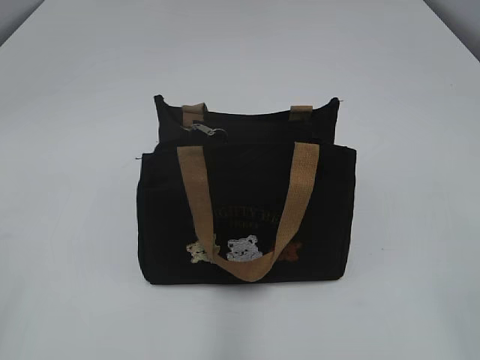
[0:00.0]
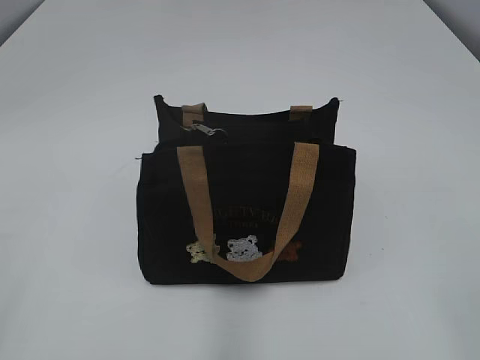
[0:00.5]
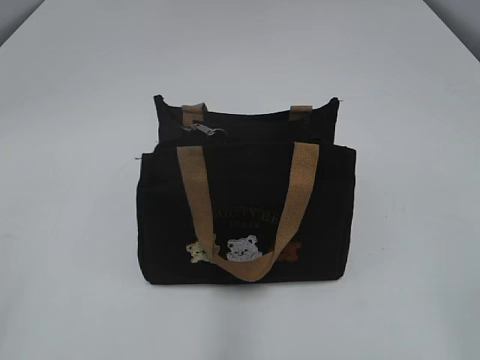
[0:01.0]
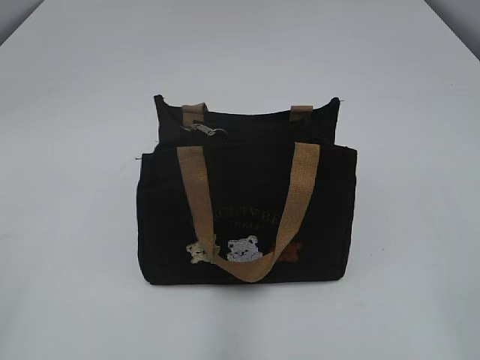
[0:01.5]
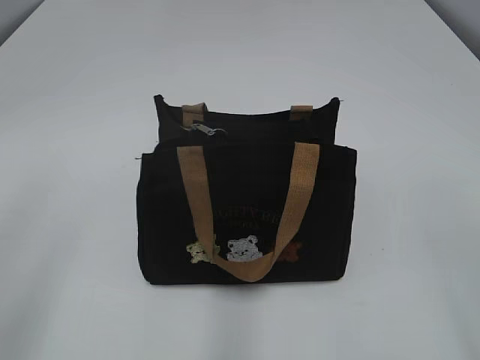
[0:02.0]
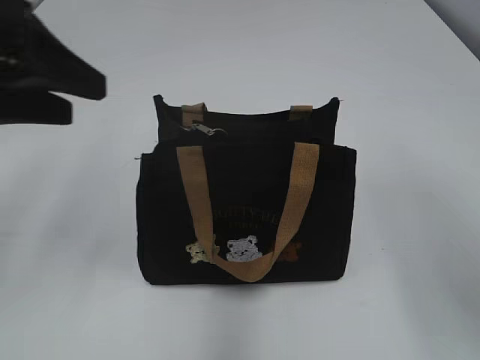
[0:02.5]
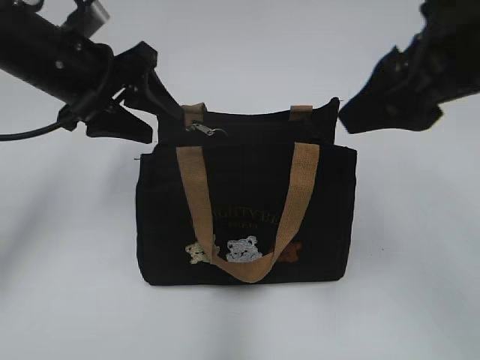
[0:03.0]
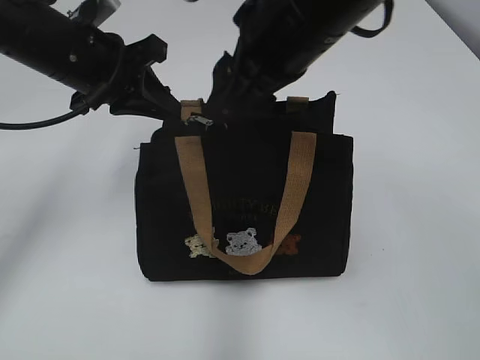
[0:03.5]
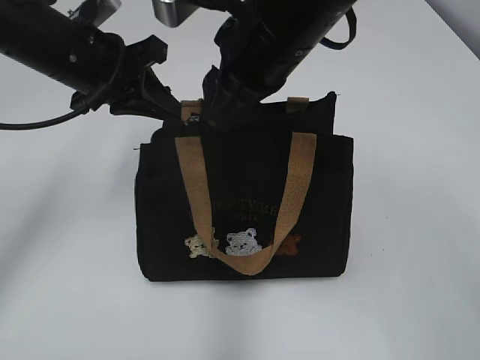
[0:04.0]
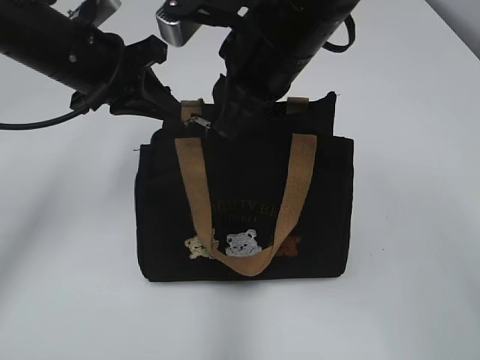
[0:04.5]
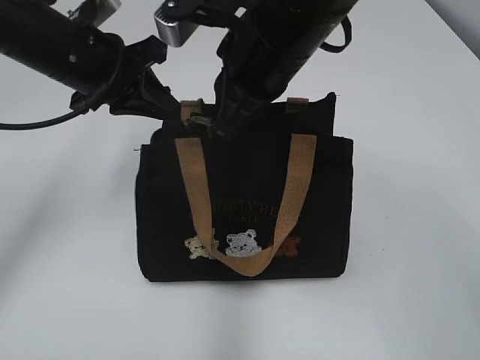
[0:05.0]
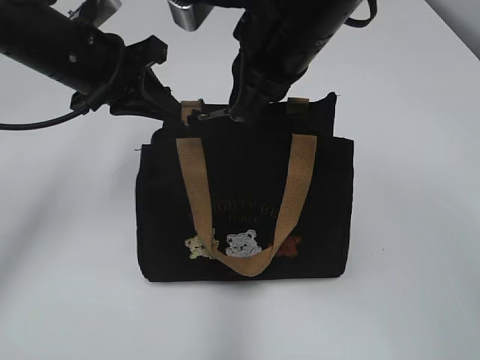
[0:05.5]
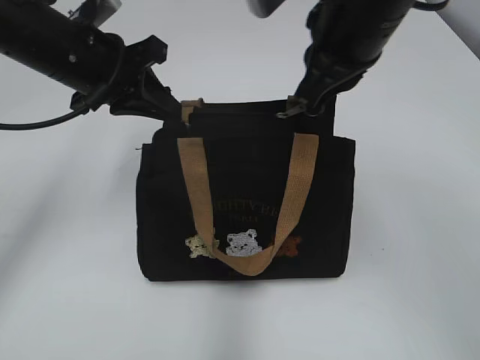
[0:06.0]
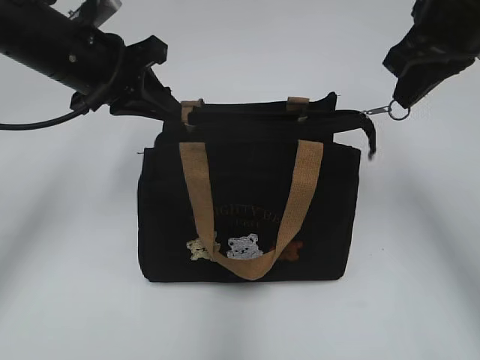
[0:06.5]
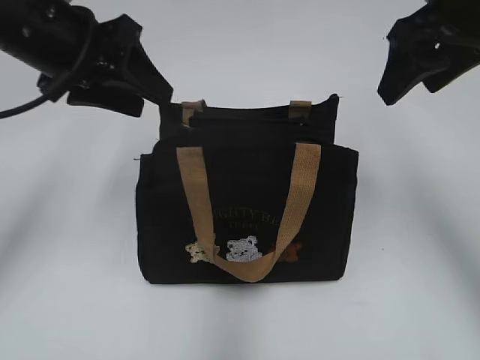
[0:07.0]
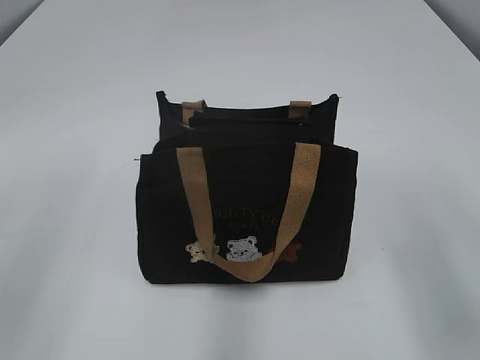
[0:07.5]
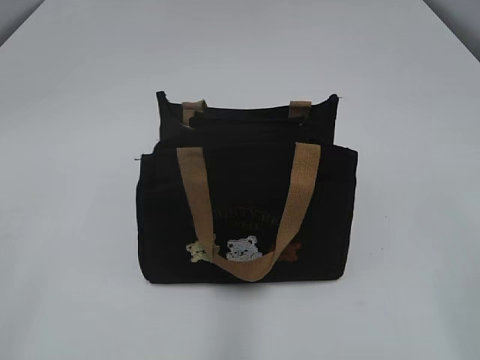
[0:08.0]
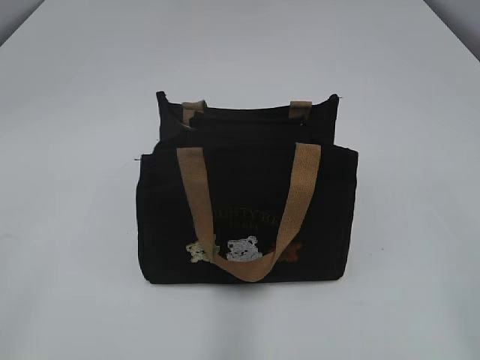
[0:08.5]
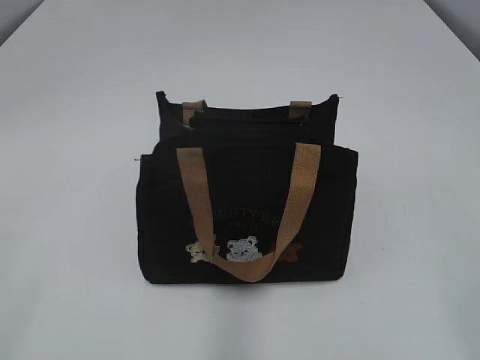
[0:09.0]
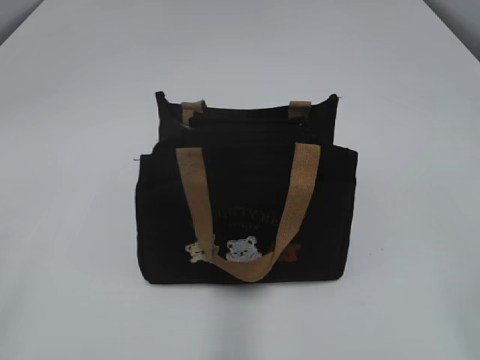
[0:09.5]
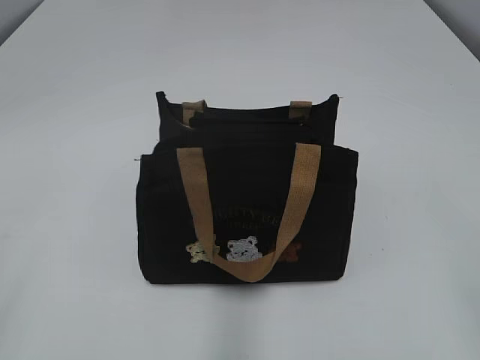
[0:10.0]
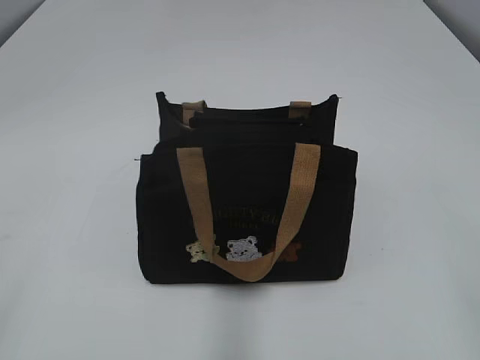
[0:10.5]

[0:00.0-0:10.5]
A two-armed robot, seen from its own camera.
Step, 0:00.0 to 0:06.5: Pull open the zipper with your right hand.
0:02.0 to 0:04.0: The left gripper heads forward and to the right, covering some 30 cm, and closes up. The right gripper is displaced forward and to the left by roughly 35 cm.
0:04.0 to 0:06.5: The right gripper goes approximately 15 cm to the right, and closes its fingers.
0:06.5 to 0:08.5: The left gripper goes about 40 cm backward and to the left, and opens up; the right gripper is displaced backward by approximately 35 cm, and opens its fingers.

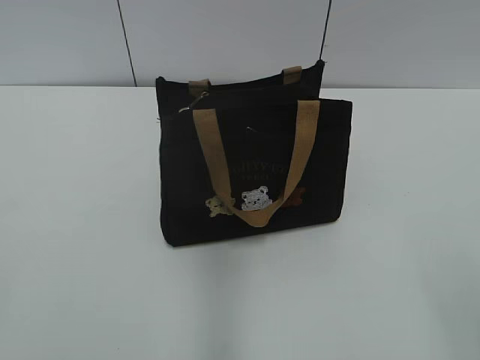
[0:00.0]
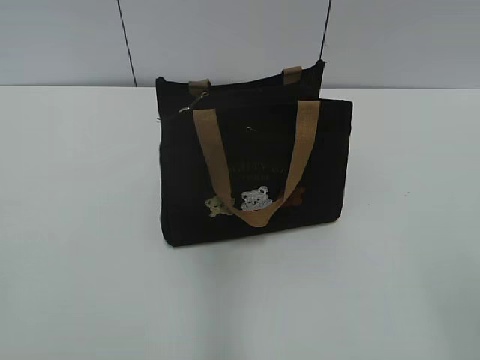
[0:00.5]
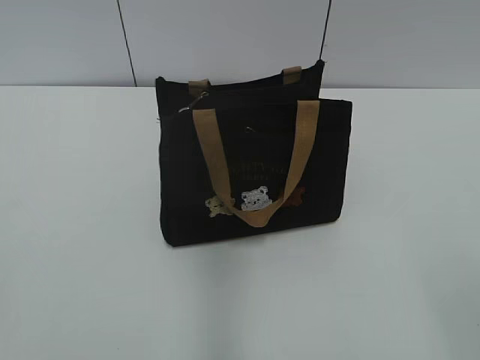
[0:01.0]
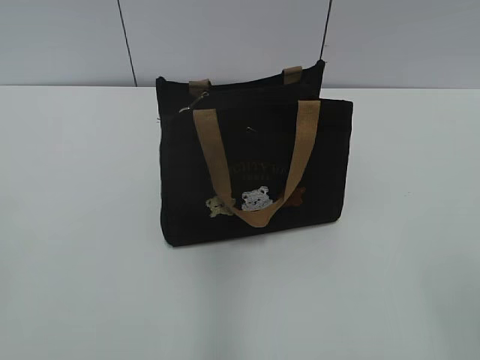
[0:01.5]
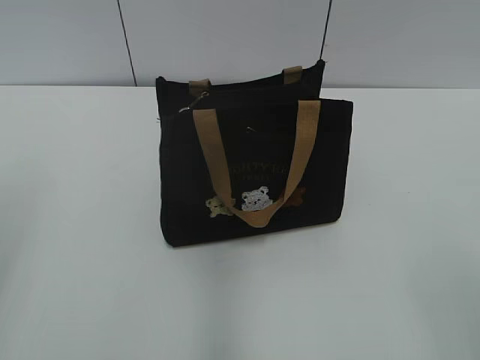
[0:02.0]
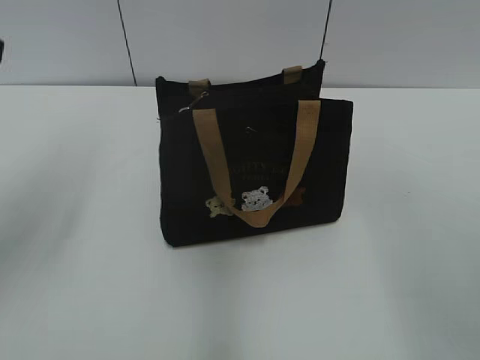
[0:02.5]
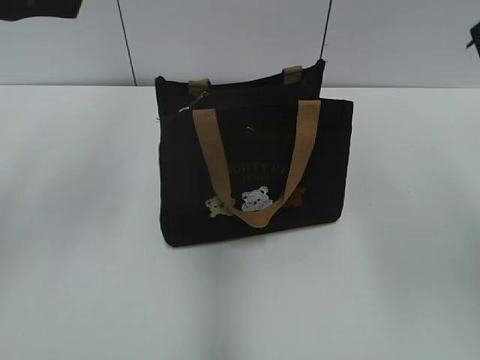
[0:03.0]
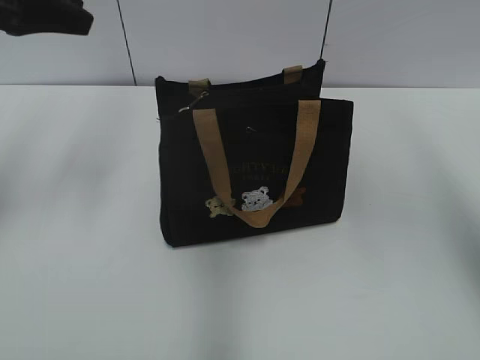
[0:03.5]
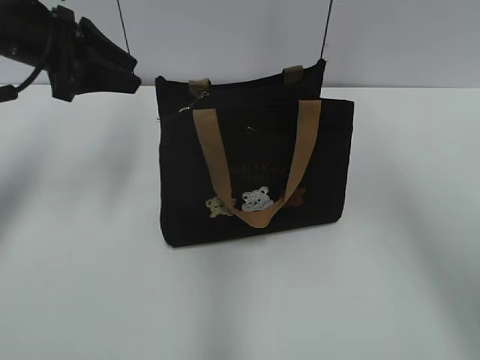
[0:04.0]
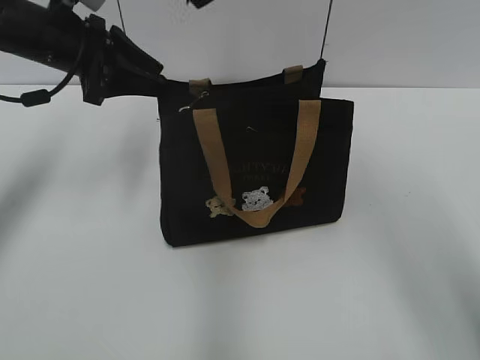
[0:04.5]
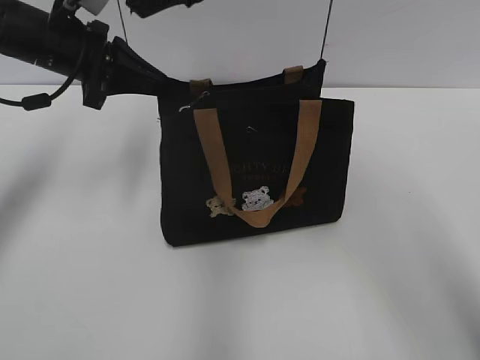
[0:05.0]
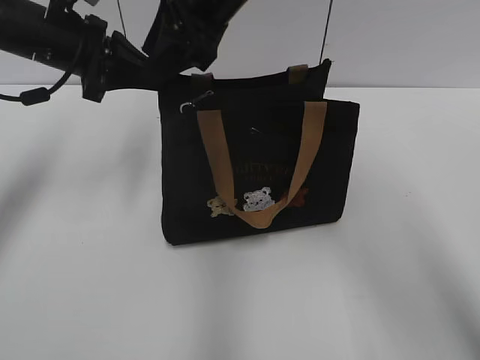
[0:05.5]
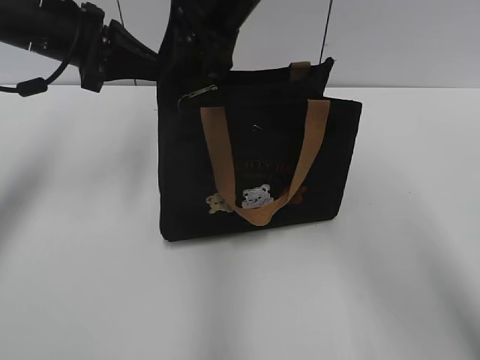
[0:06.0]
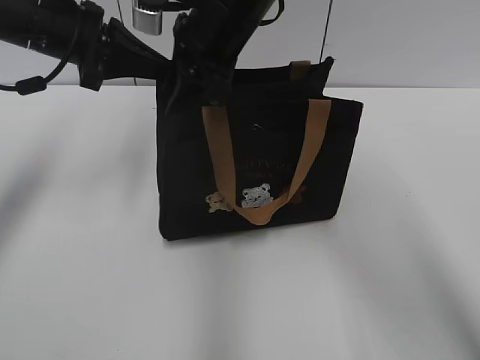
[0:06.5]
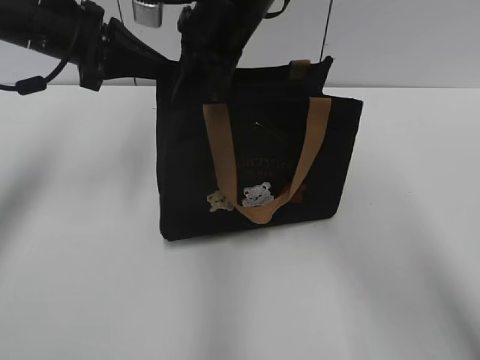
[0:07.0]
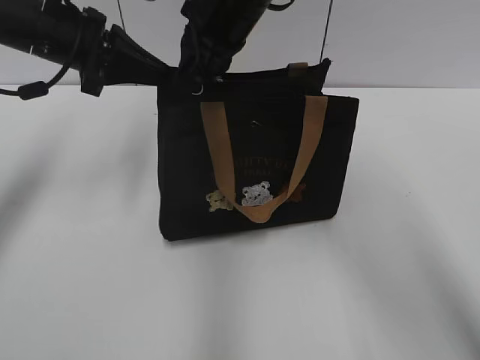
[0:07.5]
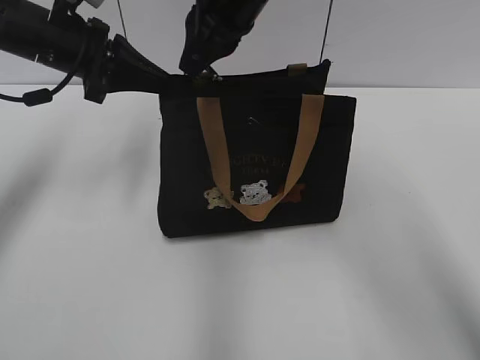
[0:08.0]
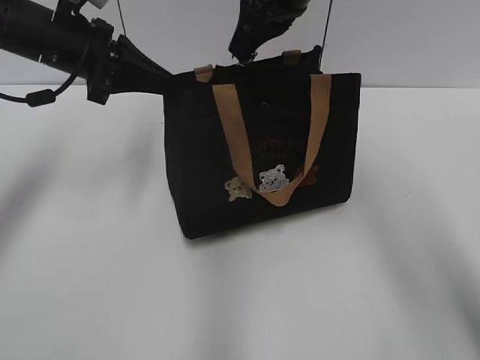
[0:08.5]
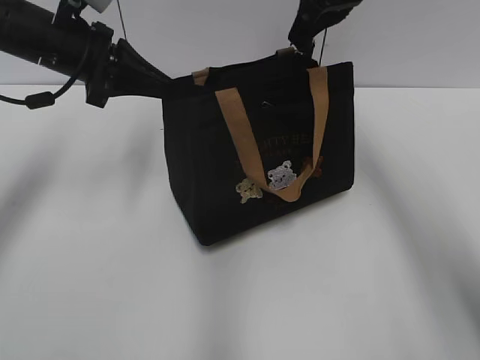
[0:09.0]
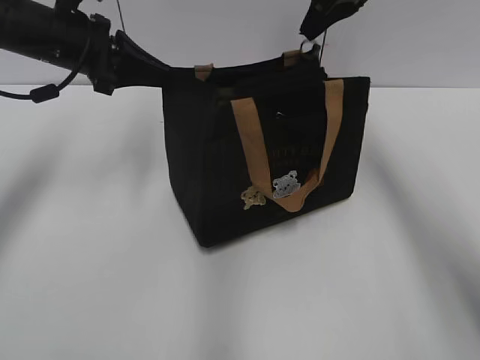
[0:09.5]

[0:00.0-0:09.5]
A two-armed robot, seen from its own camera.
Step, 0:00.0 to 0:09.5: Pull open the zipper with your right hand.
0:02.0 to 0:04.0: The left gripper is displaced forward by some 25 cm; the right gripper heads forward, to the left and upward, covering roughly 40 cm.
0:04.0 to 0:05.5: The right gripper goes approximately 15 cm to the left and downward, while the left gripper closes its fingers.
0:05.5 to 0:07.5: The right gripper closes up.
0:07.5 to 0:09.5: The right gripper goes approximately 15 cm to the right.

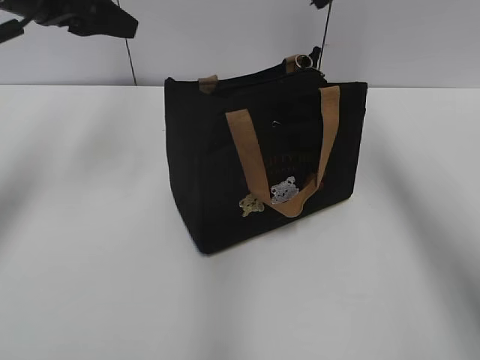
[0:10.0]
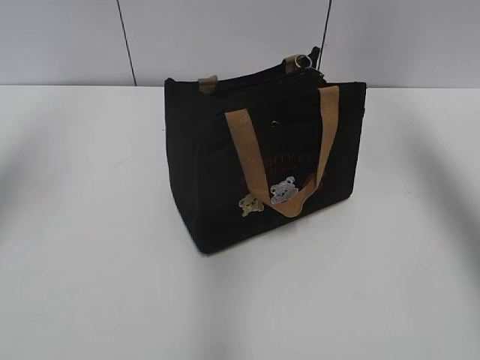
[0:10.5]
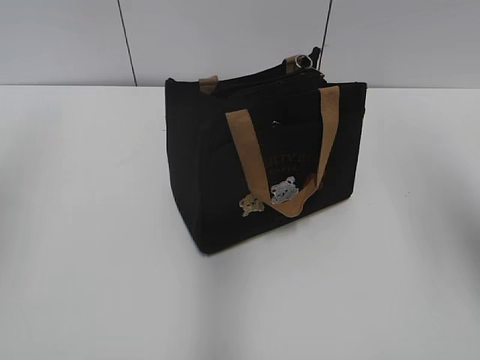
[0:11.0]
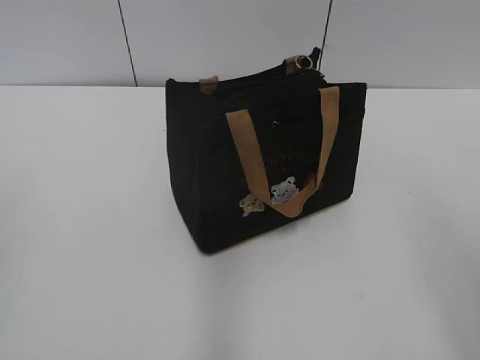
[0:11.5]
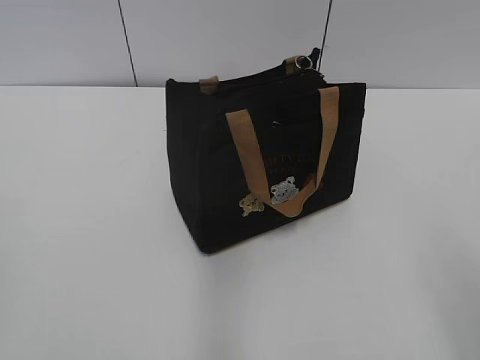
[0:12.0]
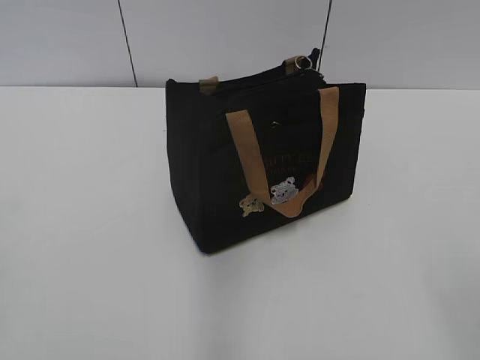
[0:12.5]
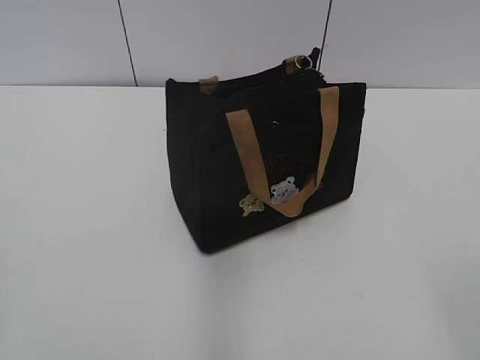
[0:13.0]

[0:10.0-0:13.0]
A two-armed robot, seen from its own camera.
0:10.0 to 0:11.5: Both grippers travel together backward, approximately 30 cm.

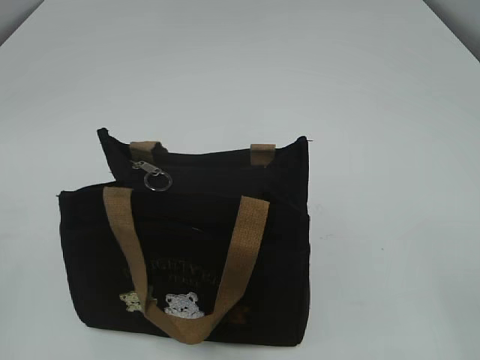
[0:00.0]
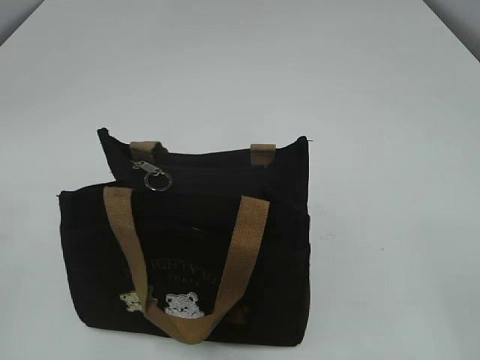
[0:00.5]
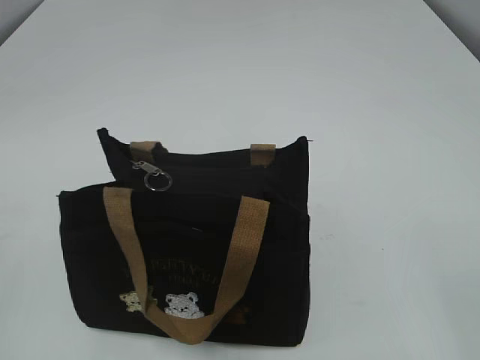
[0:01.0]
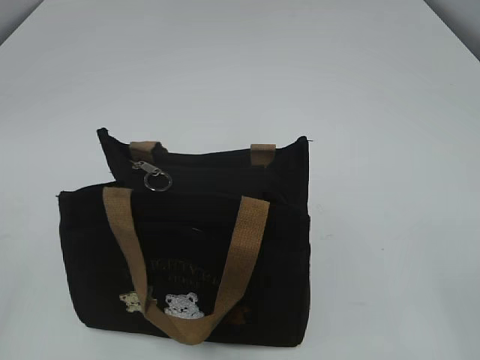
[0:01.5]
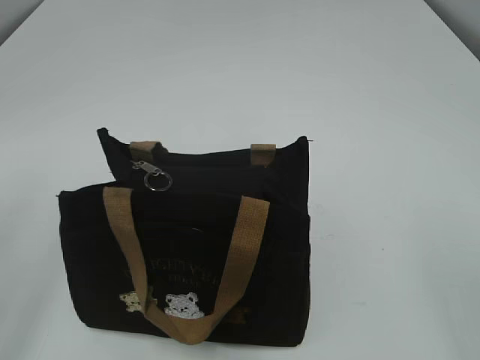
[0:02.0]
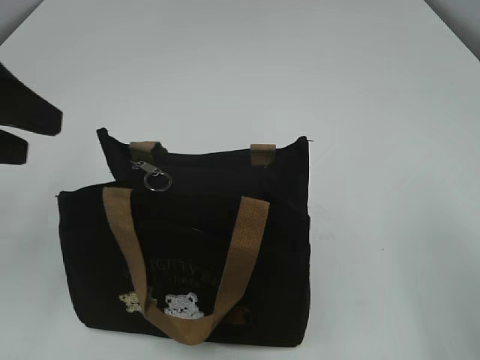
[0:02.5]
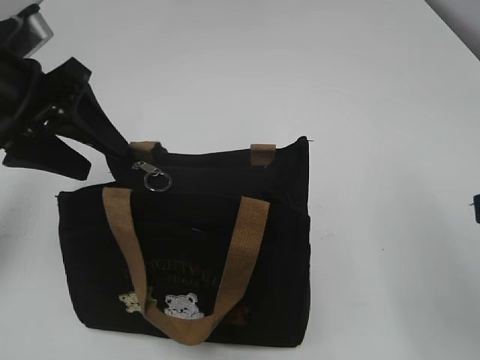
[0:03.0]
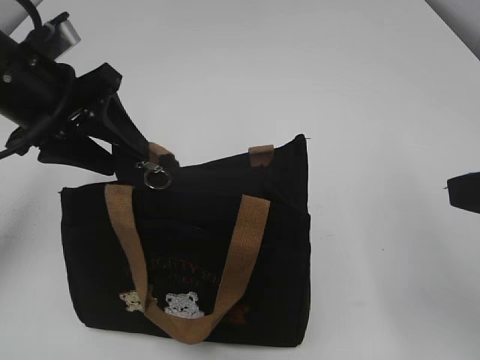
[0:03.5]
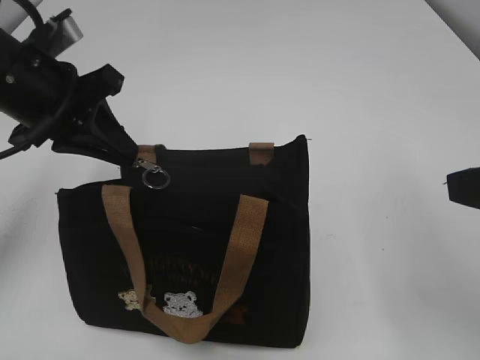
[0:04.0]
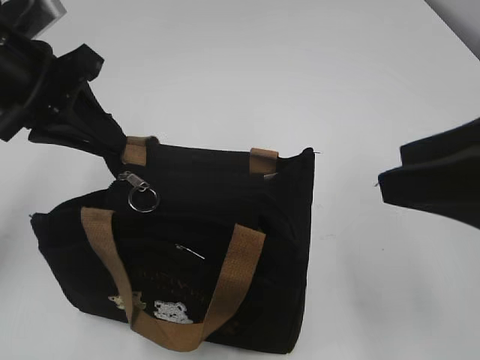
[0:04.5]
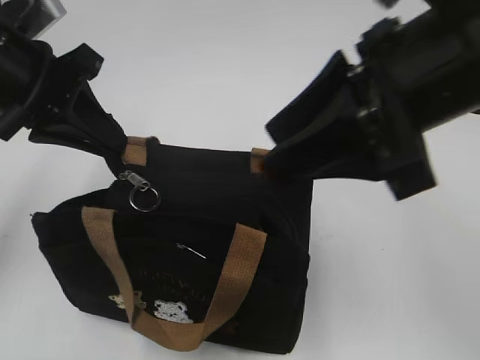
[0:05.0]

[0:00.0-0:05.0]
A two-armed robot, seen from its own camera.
0:02.5 to 0:05.0: The left gripper heads forward and to the right, covering approximately 10 cm, and closes up; the right gripper is displaced forward and to the left by approximately 20 cm.
